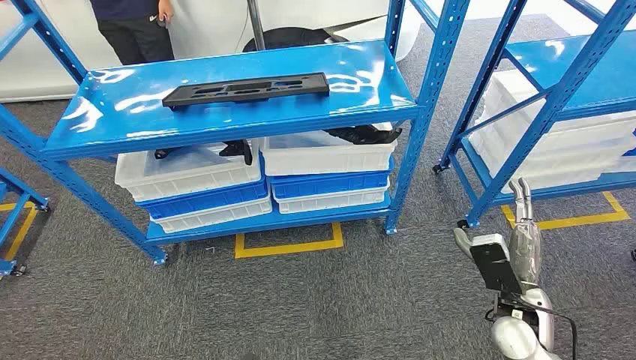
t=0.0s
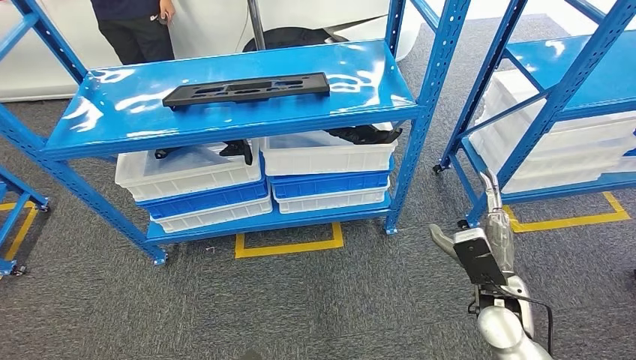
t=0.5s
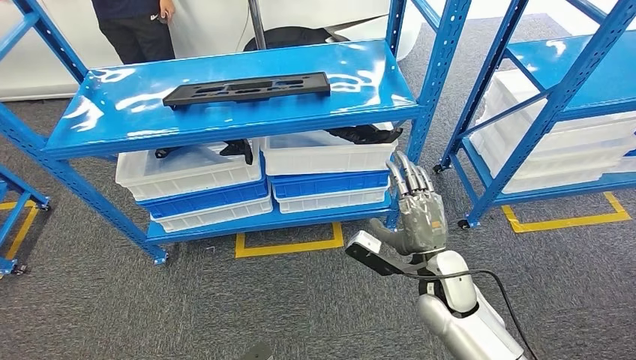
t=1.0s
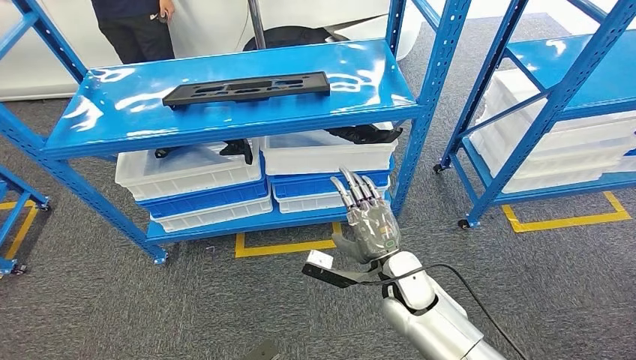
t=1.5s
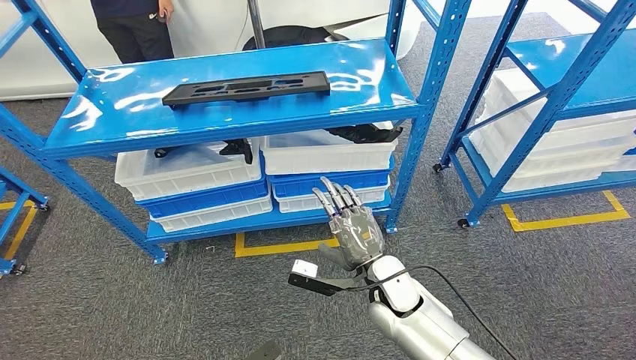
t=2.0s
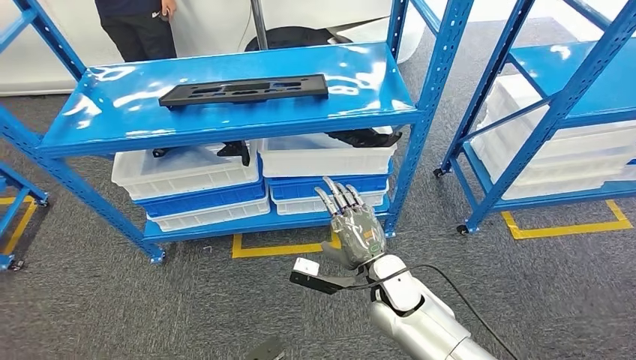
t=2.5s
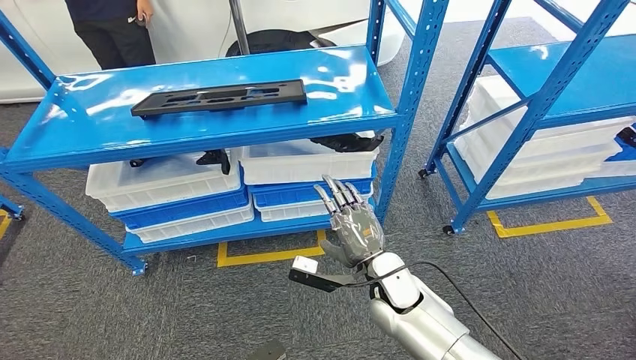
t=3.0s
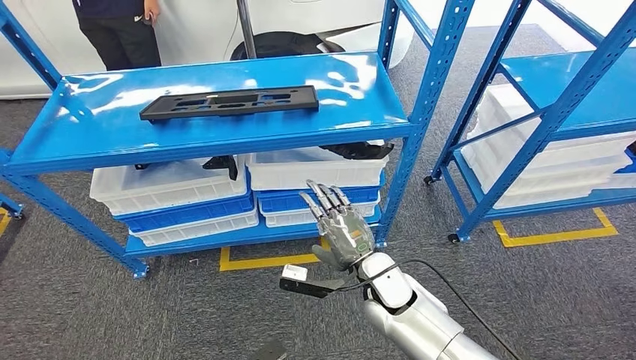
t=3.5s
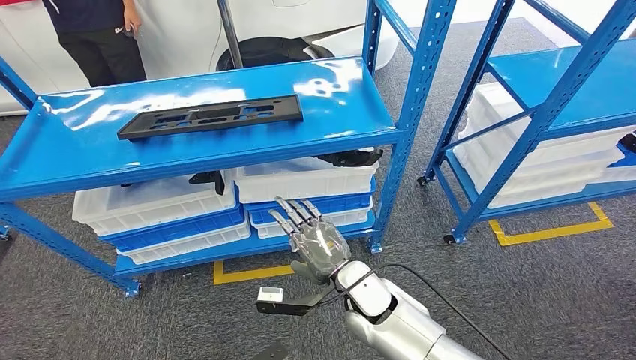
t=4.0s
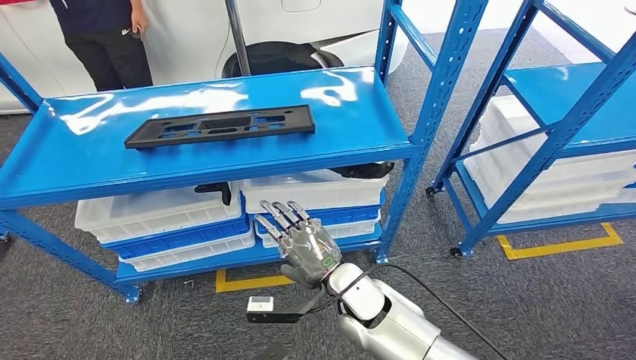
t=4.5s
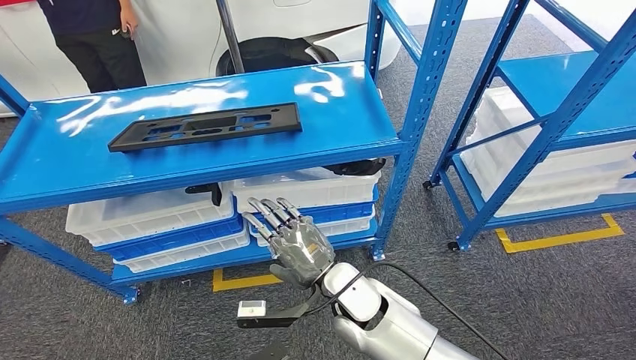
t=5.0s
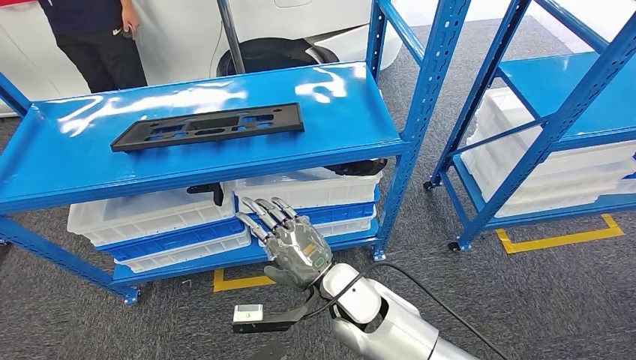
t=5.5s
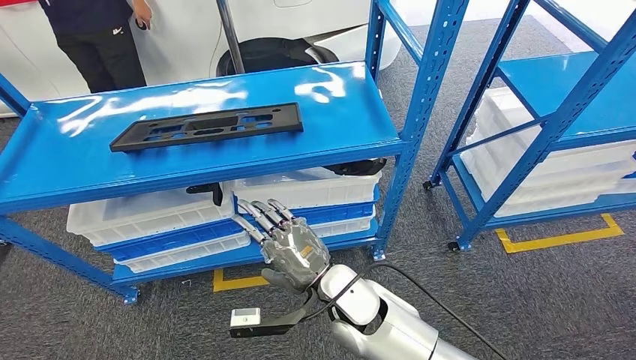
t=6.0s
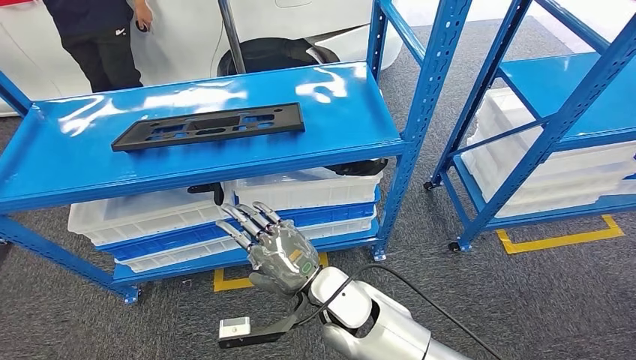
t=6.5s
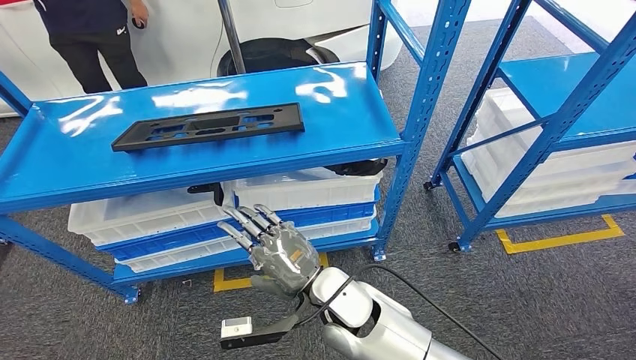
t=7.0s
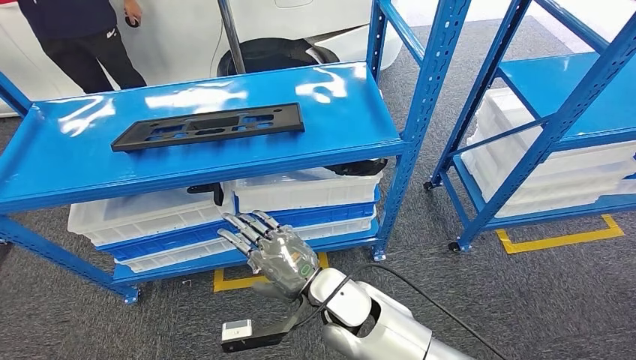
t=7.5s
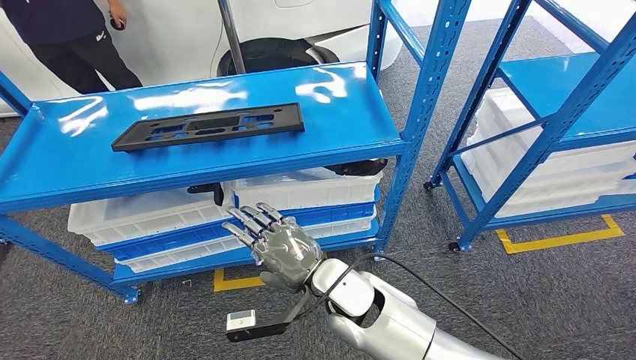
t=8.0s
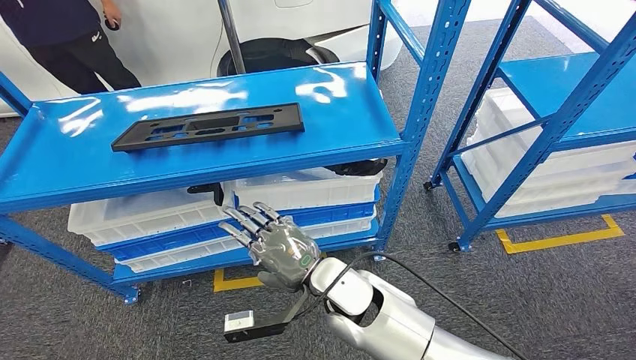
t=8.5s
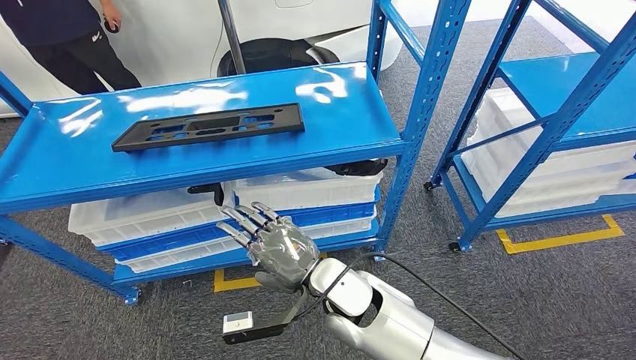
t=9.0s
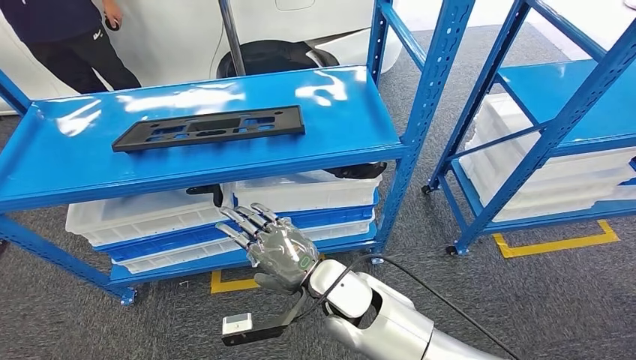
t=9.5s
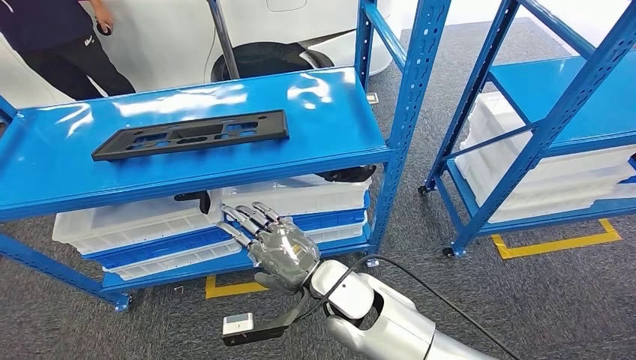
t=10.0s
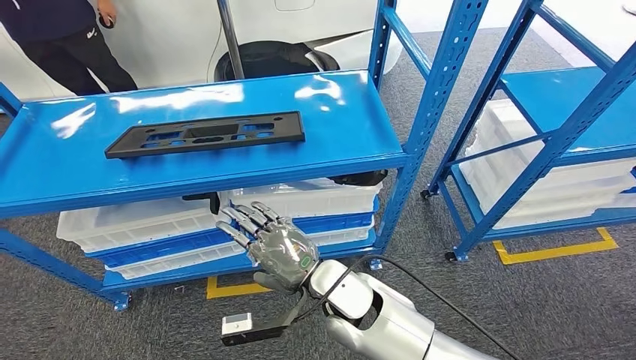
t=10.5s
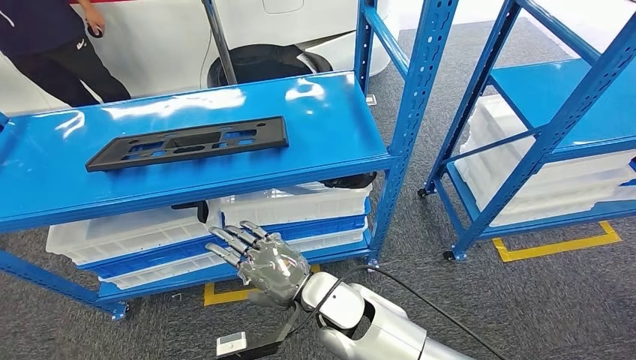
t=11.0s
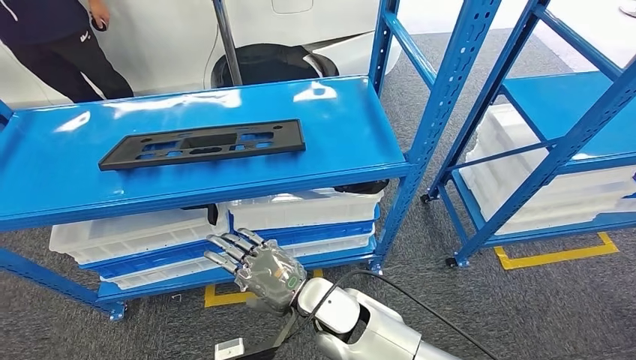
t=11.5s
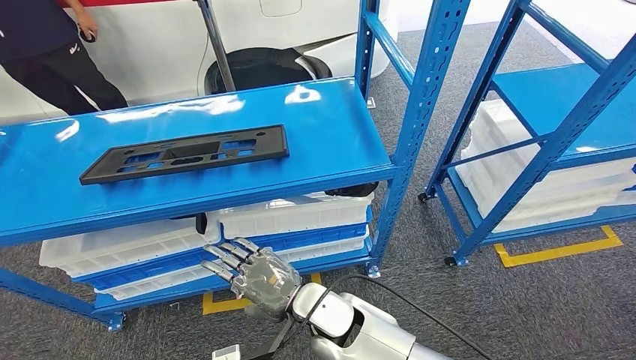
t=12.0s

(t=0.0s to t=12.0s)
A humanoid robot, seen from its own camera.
t=6.0s - t=8.0s: The left hand shifts some 10 cm backward.

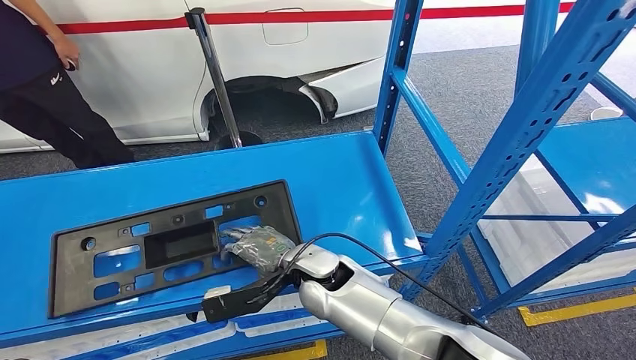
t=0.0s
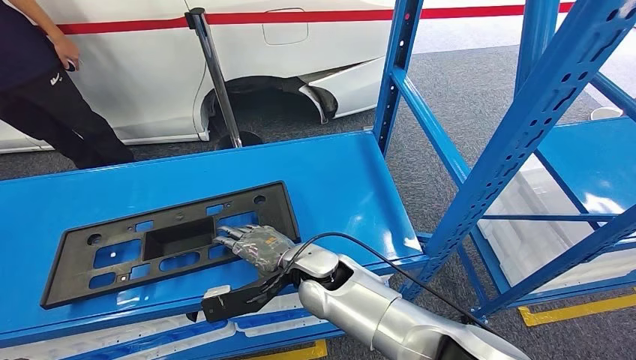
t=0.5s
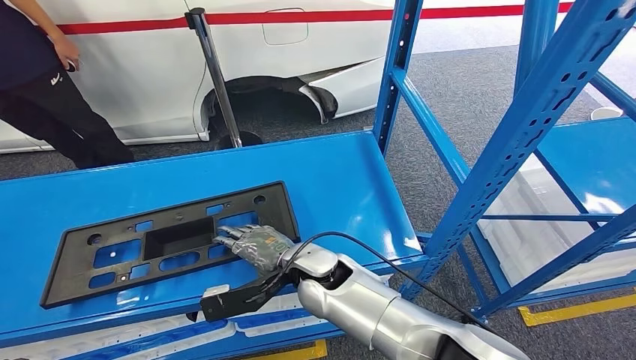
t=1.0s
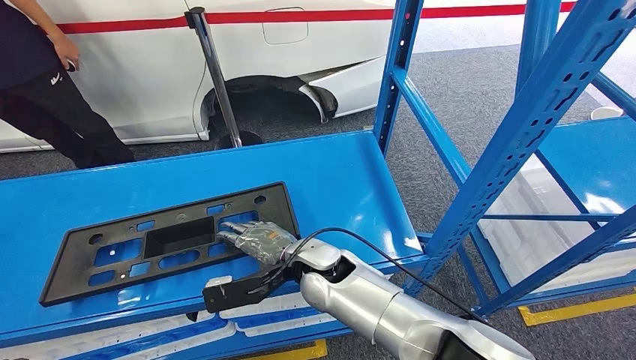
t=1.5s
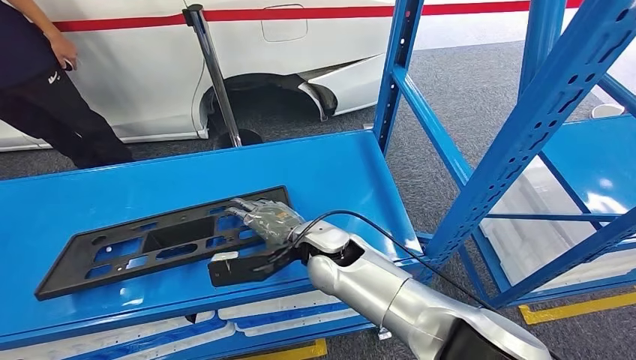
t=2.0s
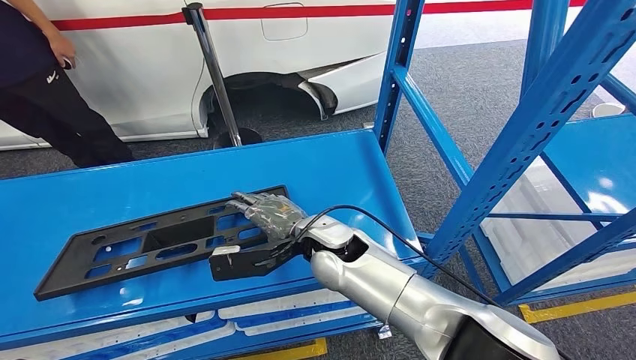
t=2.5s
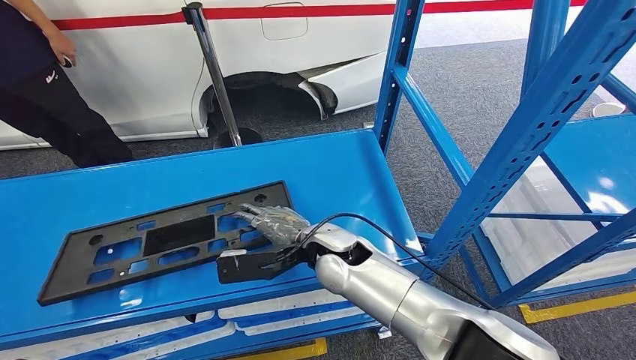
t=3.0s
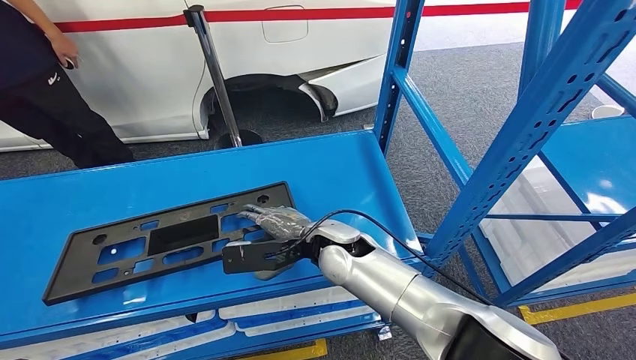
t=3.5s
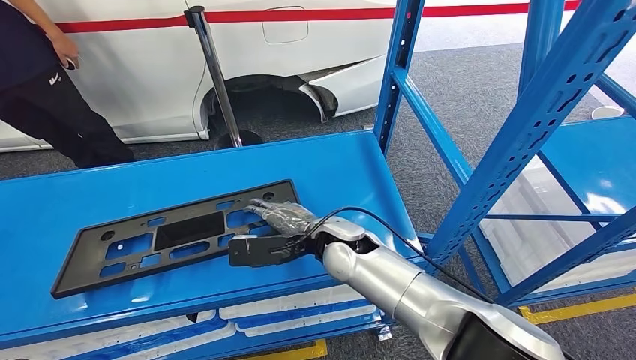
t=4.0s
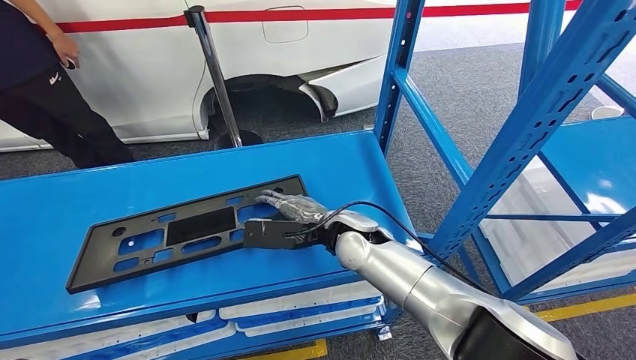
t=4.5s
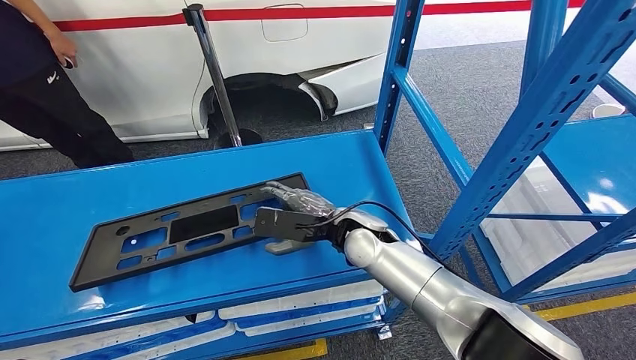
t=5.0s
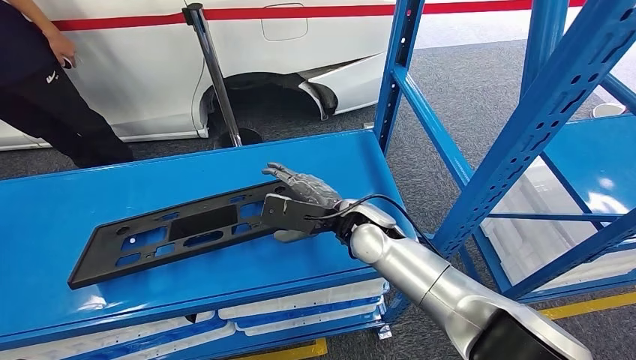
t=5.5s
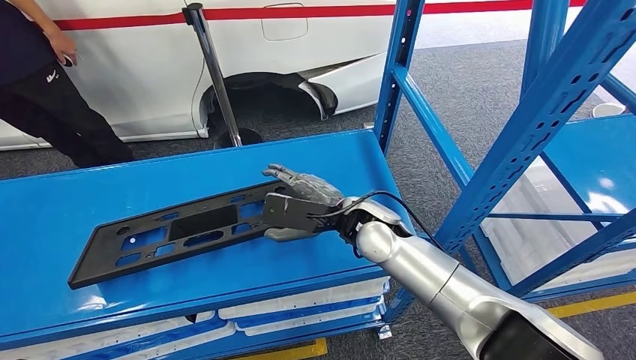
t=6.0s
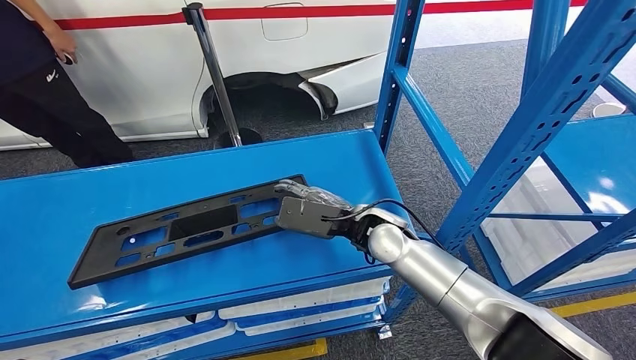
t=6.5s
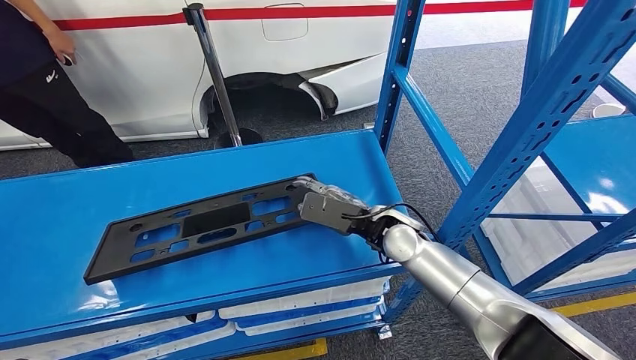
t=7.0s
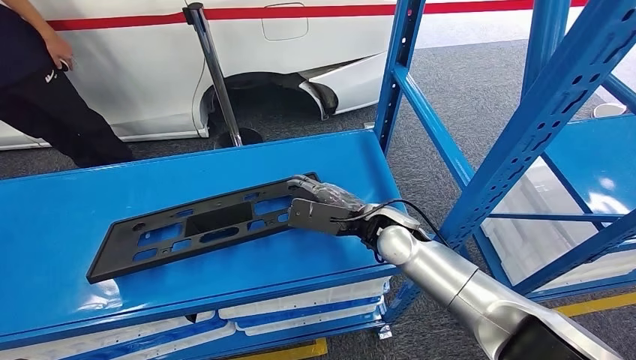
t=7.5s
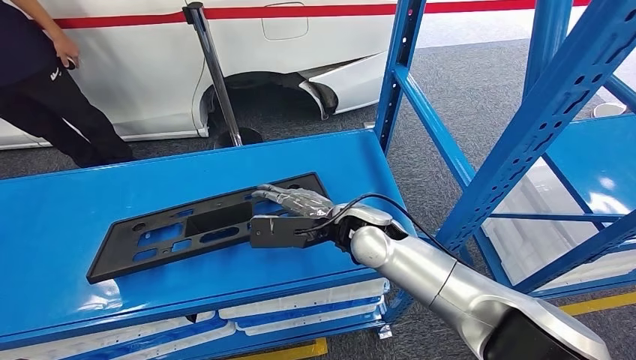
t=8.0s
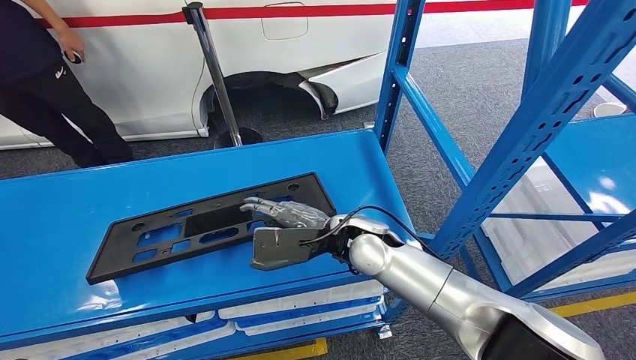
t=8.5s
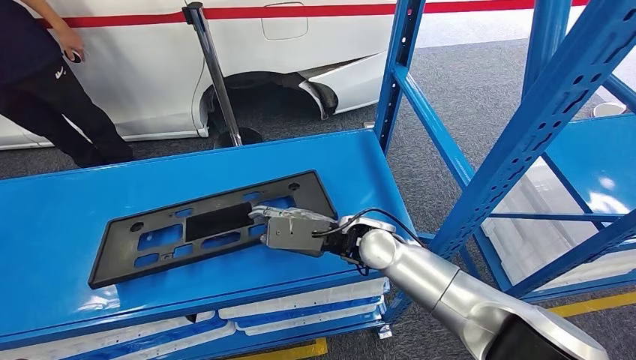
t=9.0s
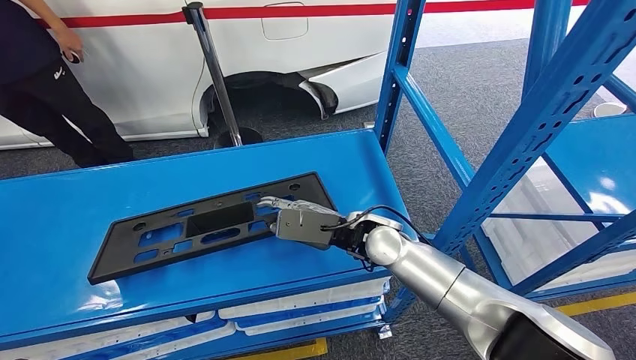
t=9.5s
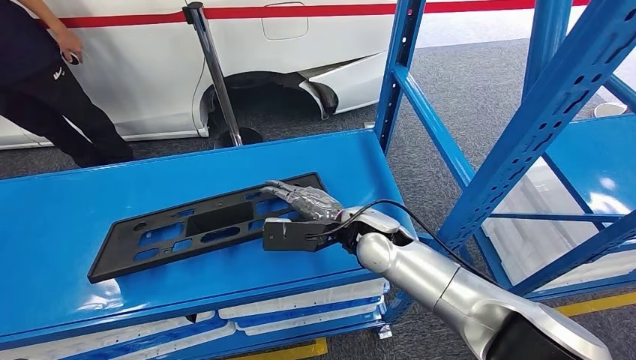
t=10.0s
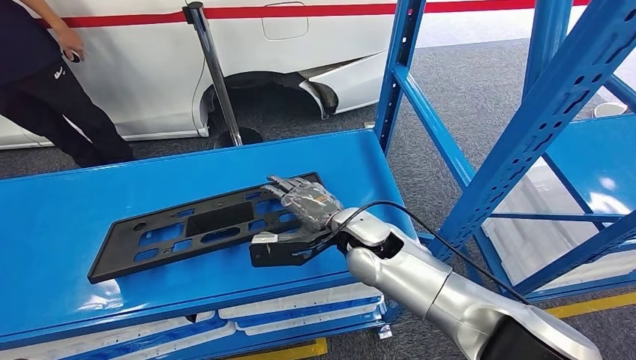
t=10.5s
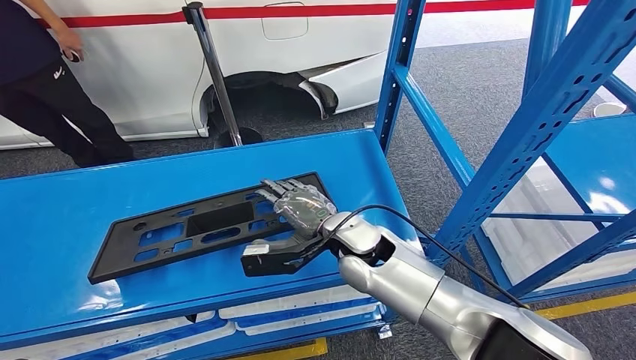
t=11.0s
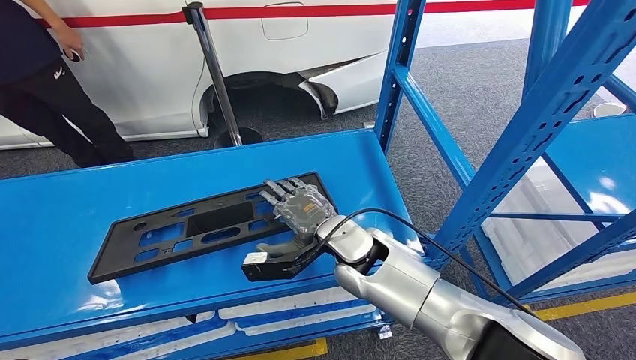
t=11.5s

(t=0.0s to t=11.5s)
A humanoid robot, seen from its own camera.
t=2.0s - t=4.0s: The hands move only a little.
